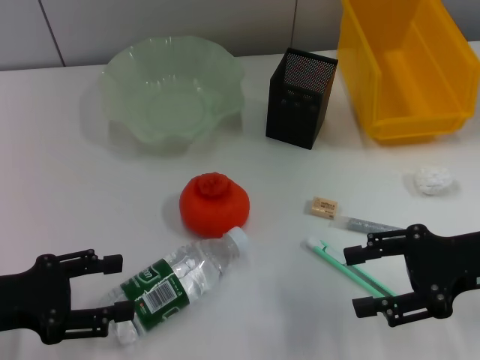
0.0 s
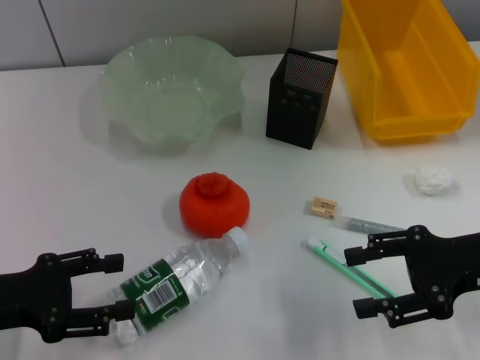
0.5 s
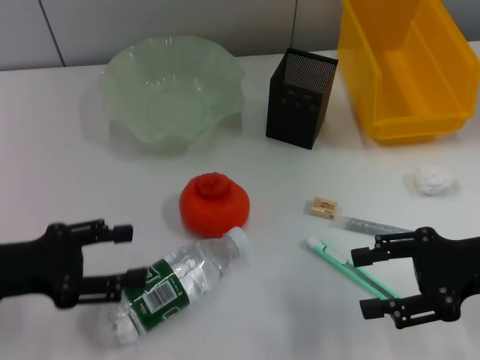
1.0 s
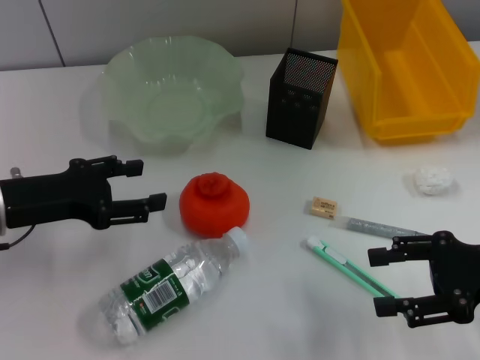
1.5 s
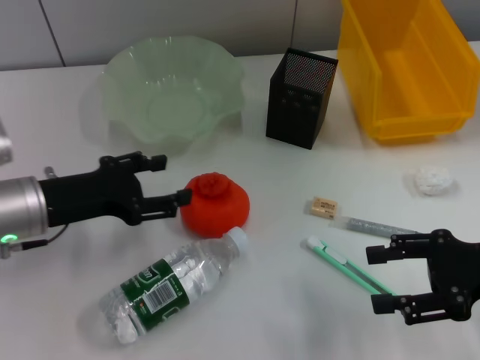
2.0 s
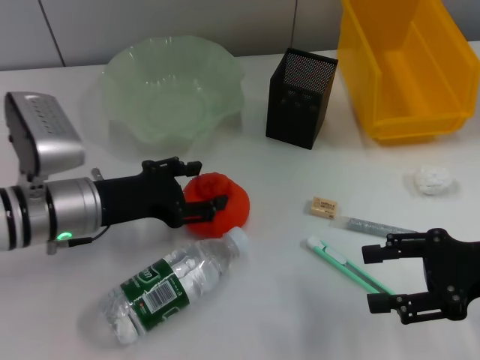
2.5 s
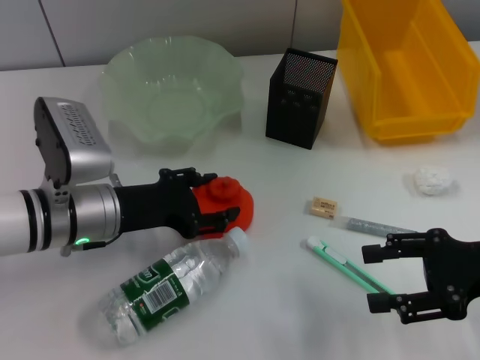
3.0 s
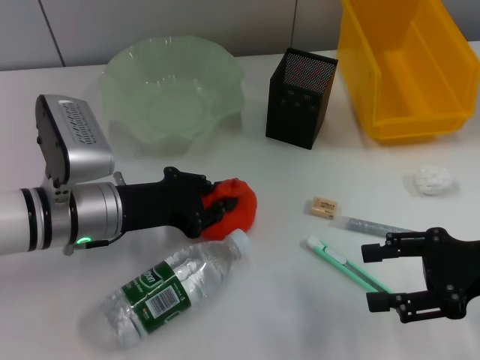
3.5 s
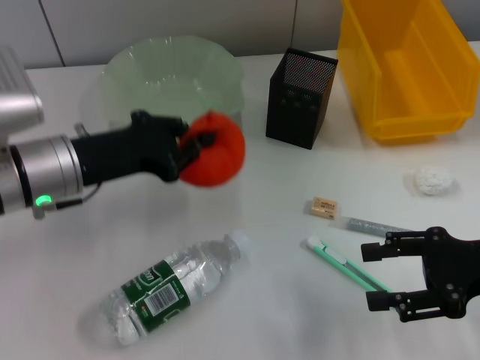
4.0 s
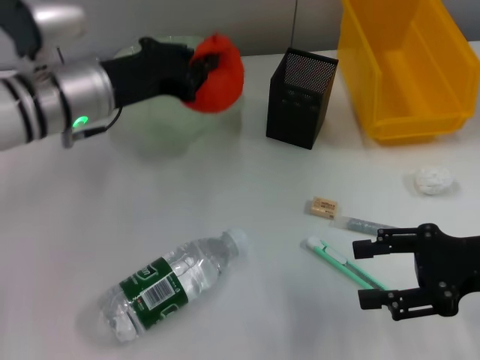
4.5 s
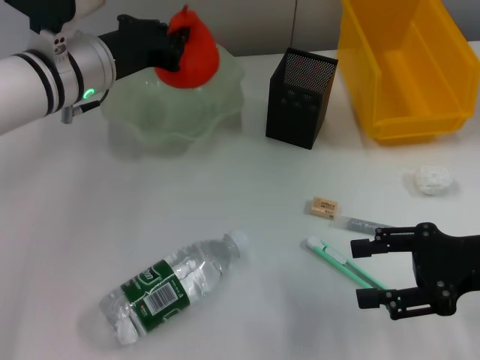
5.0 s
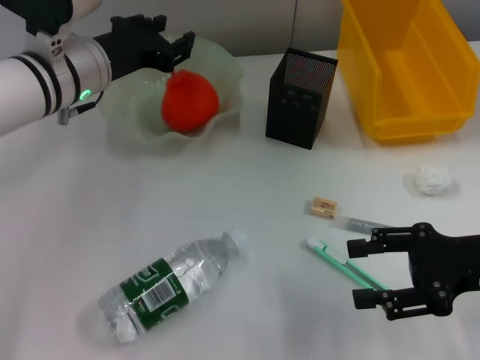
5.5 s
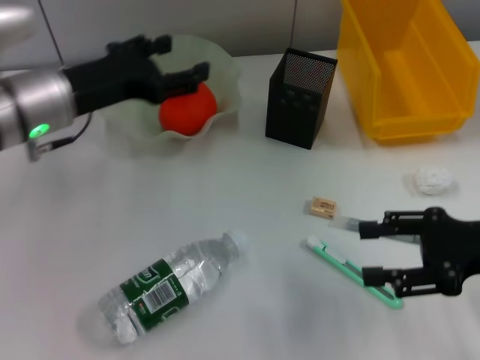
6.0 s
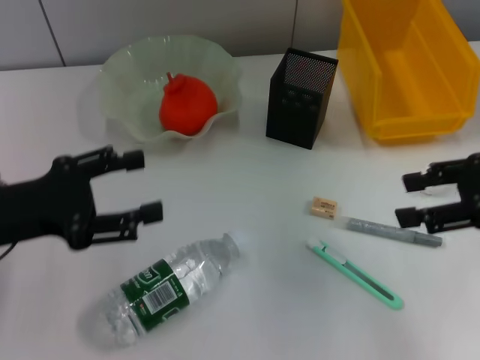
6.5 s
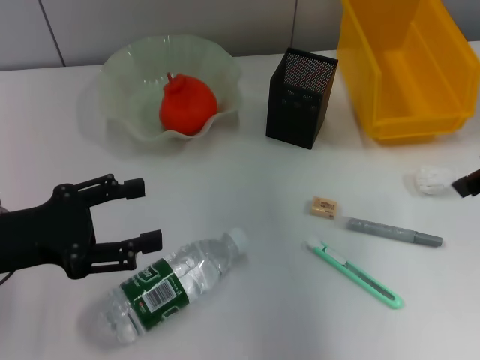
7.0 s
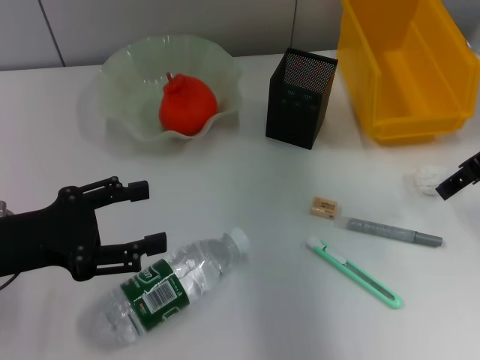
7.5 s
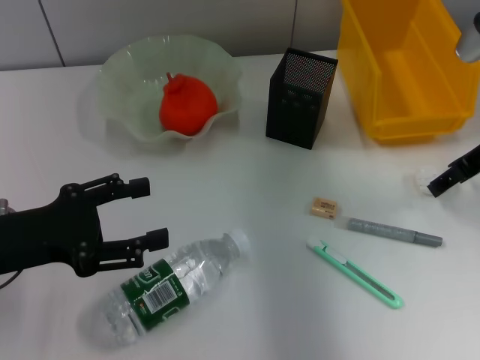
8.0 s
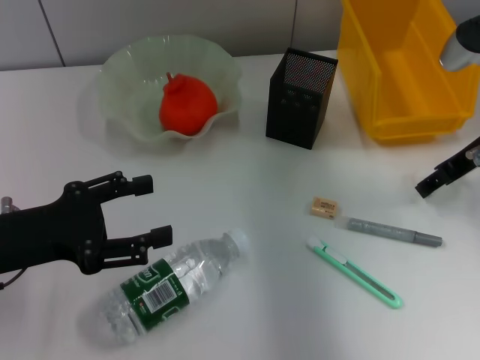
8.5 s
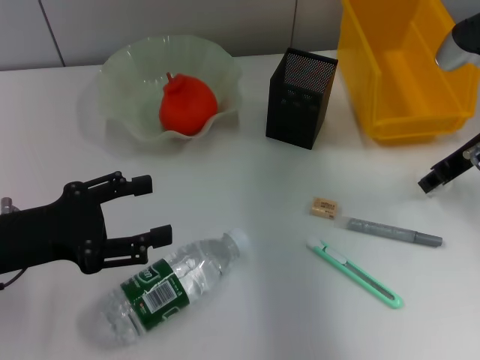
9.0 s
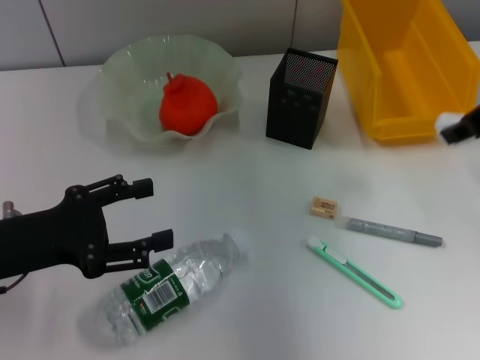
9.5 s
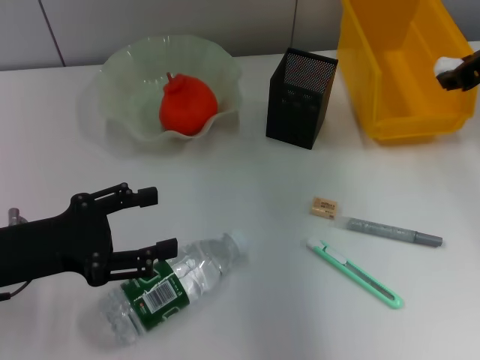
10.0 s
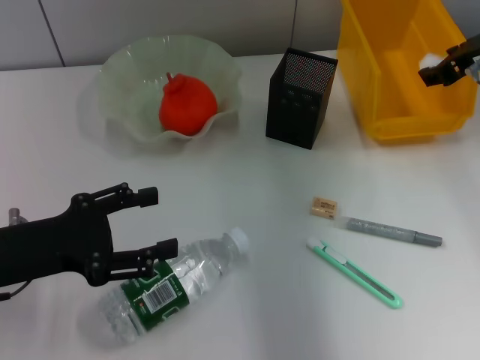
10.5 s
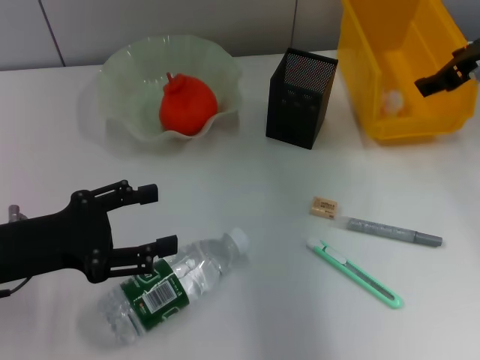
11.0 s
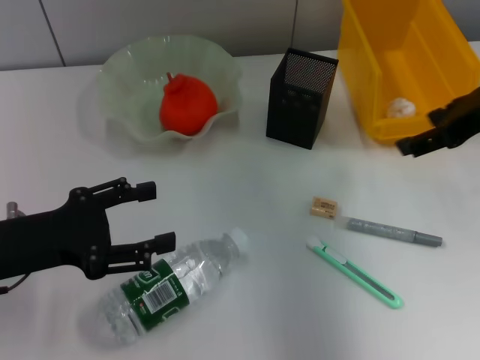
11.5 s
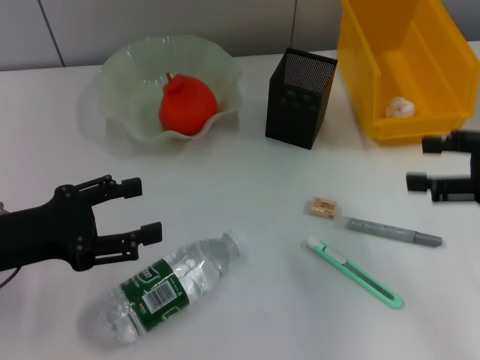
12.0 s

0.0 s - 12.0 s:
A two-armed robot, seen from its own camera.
Step, 0.0 s - 3.0 s: Grab the orange with the left hand.
Step, 3.5 s - 5.5 s: Place the orange into the fruit bowl with the left hand.
Step, 6.0 s - 8.5 s: Grab the paper ball with the right hand.
Step, 9.0 s - 11.0 s: Place the paper ball into the trash can with the right hand.
0.0 s - 2.0 s: The left gripper is displaced forward and to the right by some 10 cm.
2.0 s - 4.0 s: The left gripper ends up about 5 cm from where it was, and closes.
4.0 s - 6.0 s: The left gripper moves forward, approximately 5 cm, and opens.
6.0 s - 8.0 s: The right gripper shifts about 15 cm forward and upward. The left gripper shifts roughly 15 cm backward and to the left.
8.0 s - 10.0 s: The right gripper travels upward by some 5 cm, and closes its fingers.
10.0 s - 12.0 s: The right gripper heads backward, downward and to the right, covering some 15 cm, and opens its fingers.

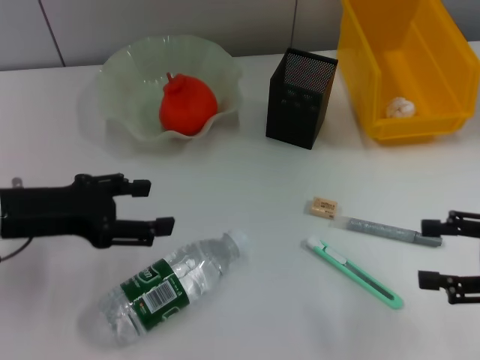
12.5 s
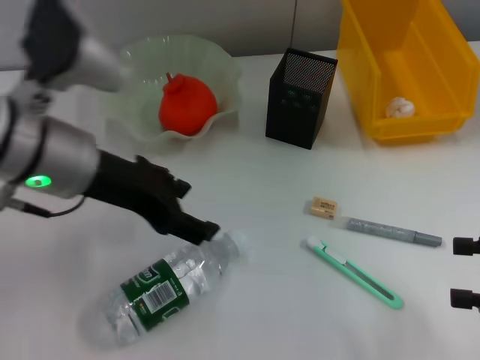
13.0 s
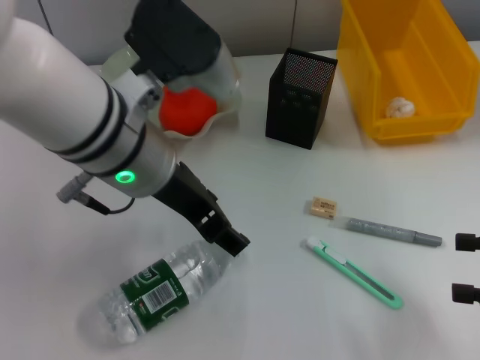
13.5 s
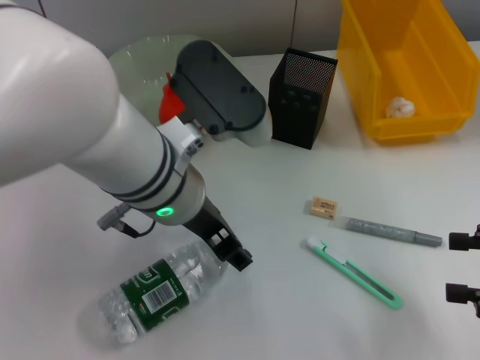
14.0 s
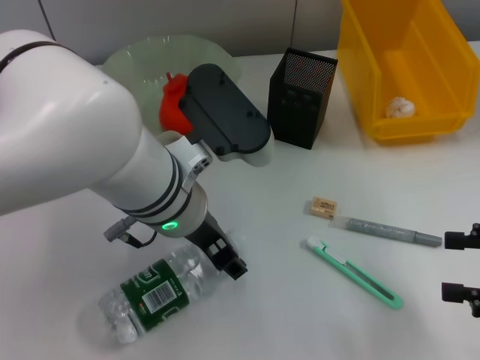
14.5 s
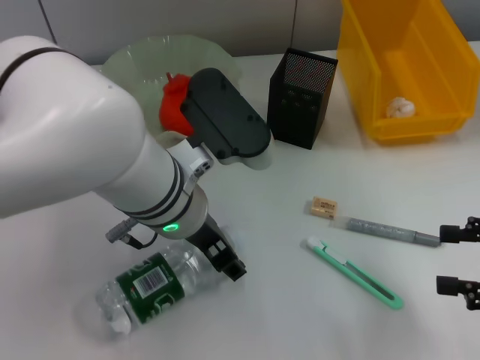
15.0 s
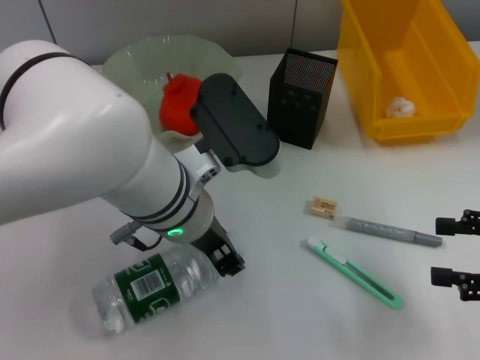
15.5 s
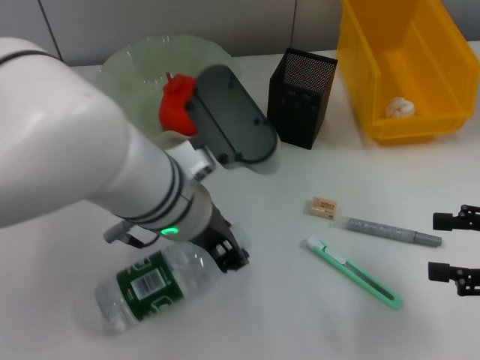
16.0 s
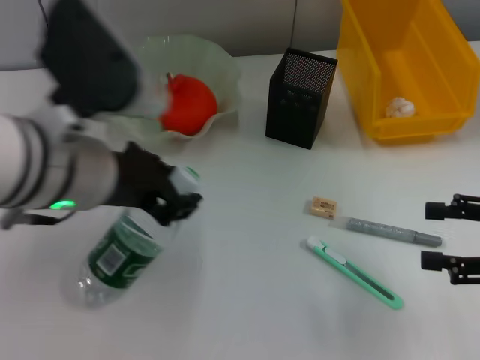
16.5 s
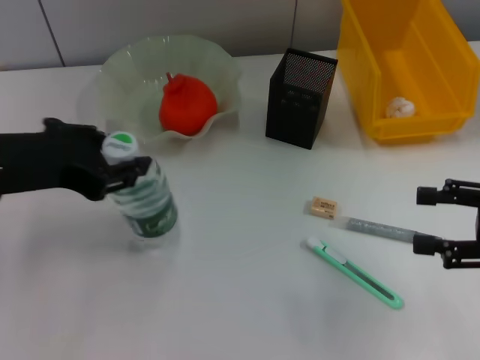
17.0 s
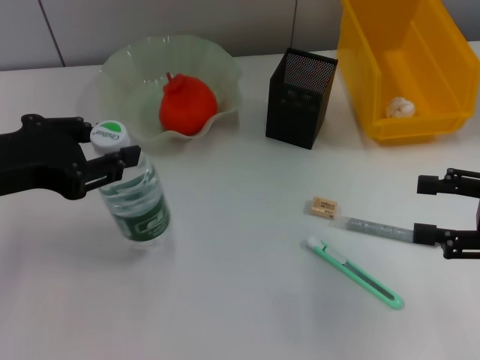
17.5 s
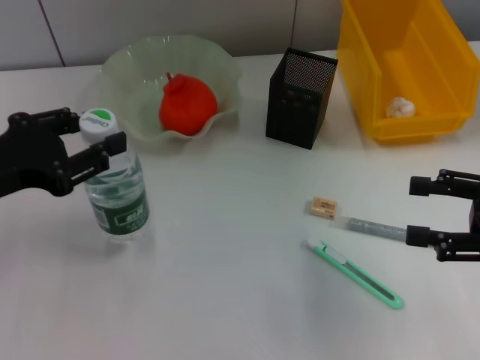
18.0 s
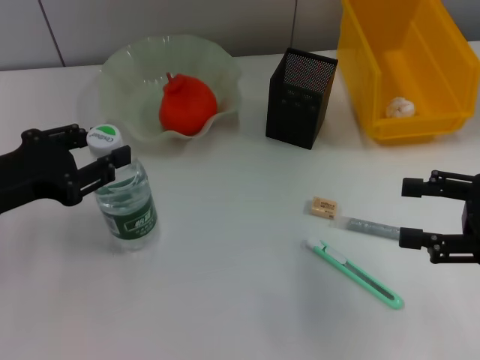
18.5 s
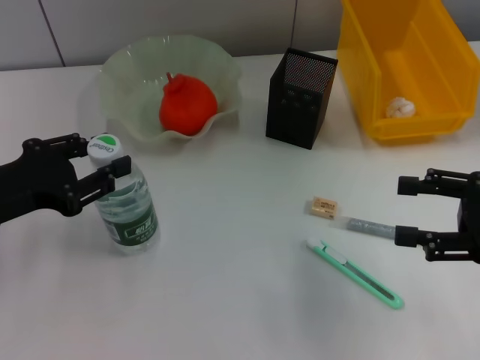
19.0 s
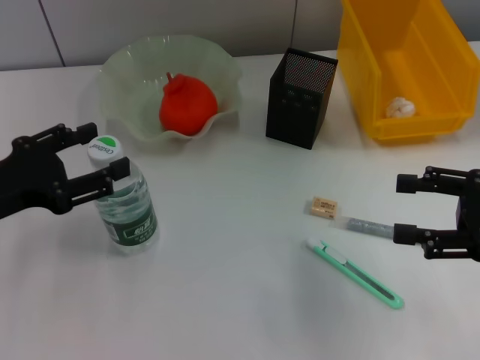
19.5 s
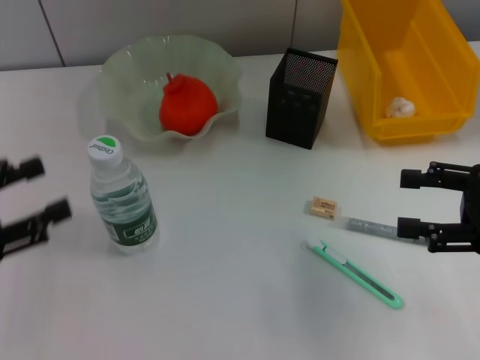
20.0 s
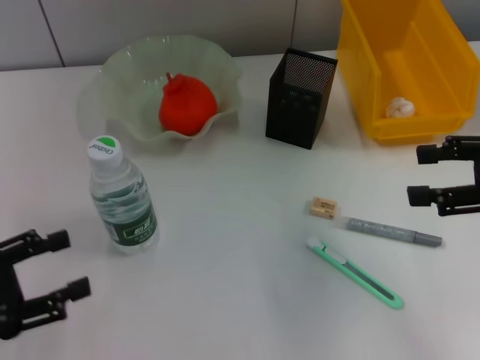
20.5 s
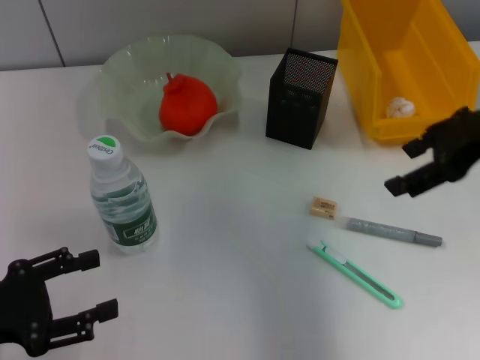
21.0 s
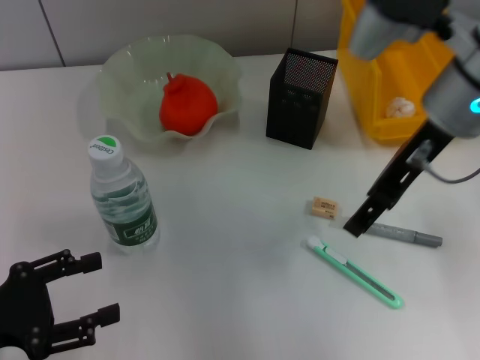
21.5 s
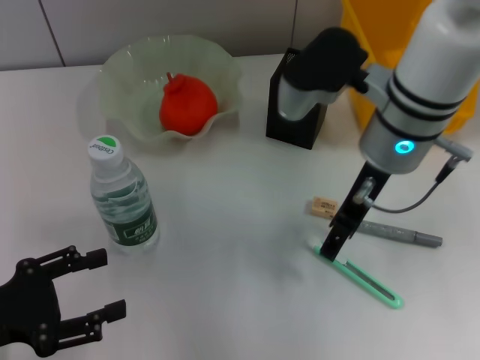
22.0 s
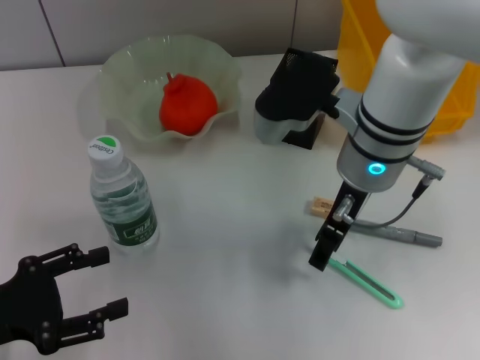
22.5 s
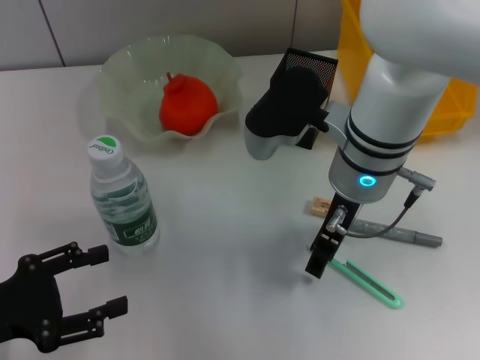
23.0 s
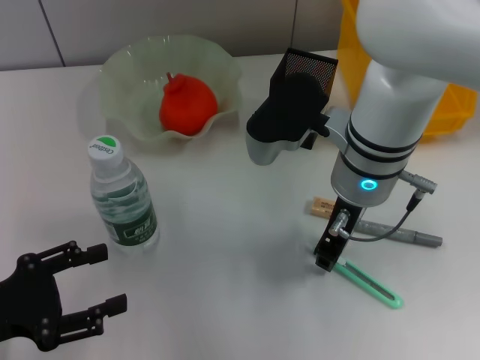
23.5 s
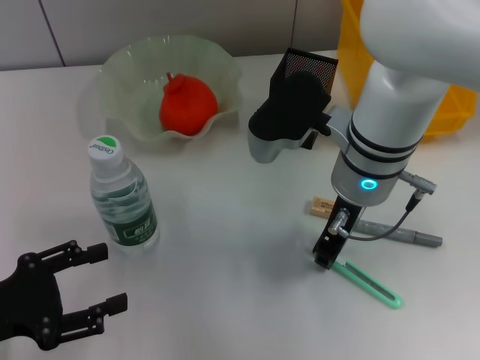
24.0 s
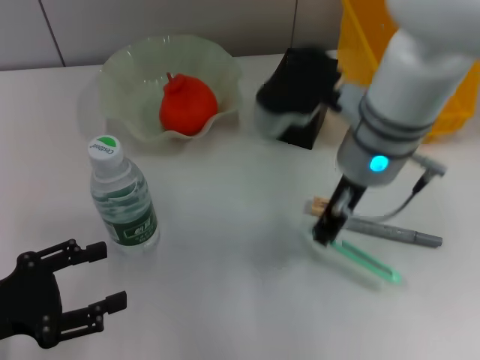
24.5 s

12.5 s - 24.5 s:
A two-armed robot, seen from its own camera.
Step, 12.5 s - 15.5 s: Grab the water bottle with the left hand.
Step, 16.0 s - 19.0 s: Place the water bottle on the table with the left hand.
Step, 19.5 s - 24.0 s: Grab the blue utility knife with the right hand.
12.5 s - 14.5 s: The left gripper heads to the right, covering about 20 cm.
14.5 s - 16.5 s: The left gripper travels to the left and upward by some 10 cm, and closes up.
16.5 s - 18.5 s: The left gripper travels to the left and downward by some 15 cm.
18.5 s - 20.5 s: The right gripper is displaced upward by approximately 5 cm; the left gripper heads backward and to the left, covering approximately 10 cm, and opens its fingers.
20.5 s - 22.5 s: The right gripper heads to the left, covering approximately 20 cm.
22.5 s - 24.5 s: The right gripper closes.

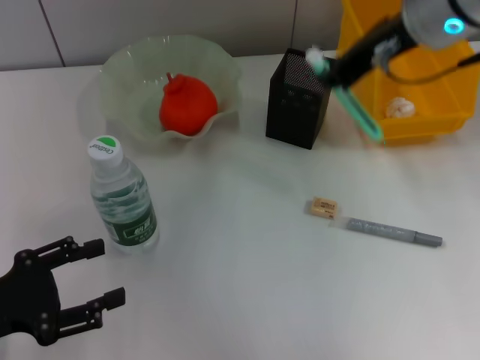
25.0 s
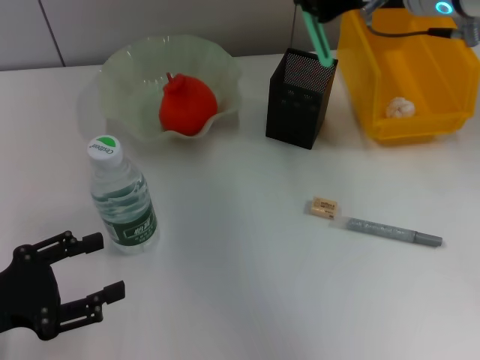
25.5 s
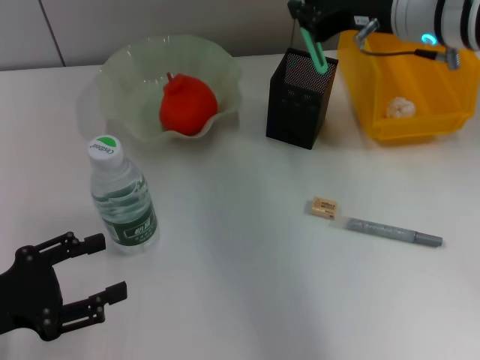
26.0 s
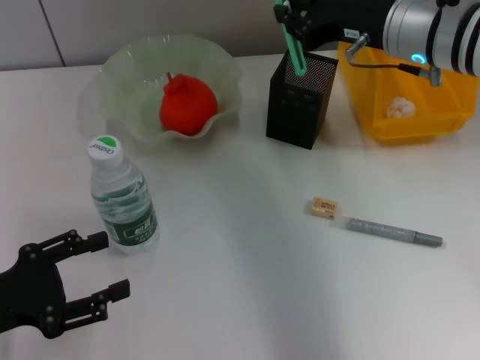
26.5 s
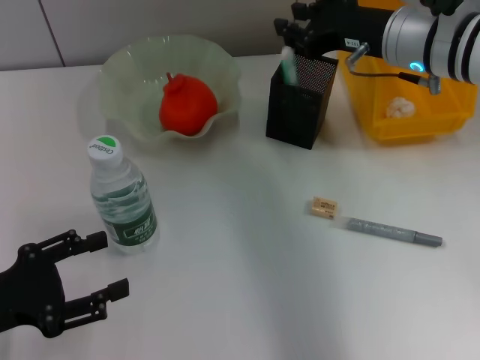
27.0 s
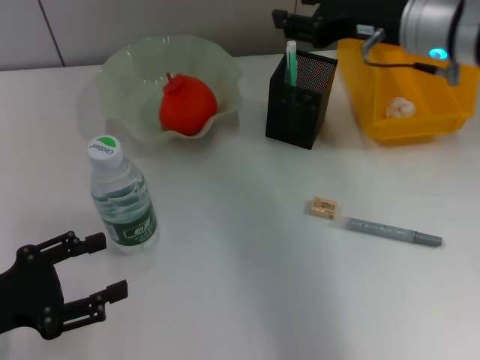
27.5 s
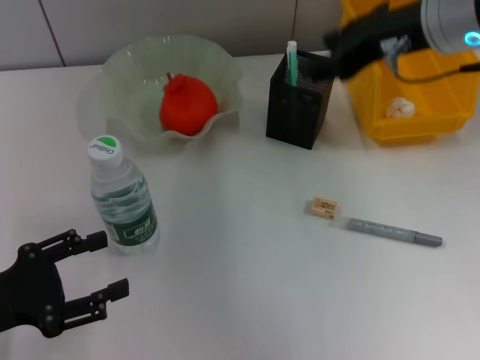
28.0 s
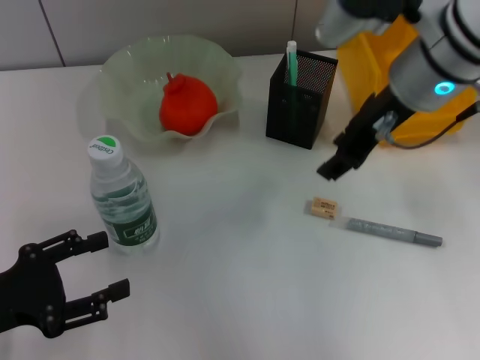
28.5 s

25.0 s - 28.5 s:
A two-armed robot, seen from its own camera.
Step, 25.0 s - 27.0 s: Place the blue utility knife into the pen holder with the right hand.
25.0 s - 27.0 s: The right gripper shifts about 10 cm downward.
27.0 s - 28.5 s: The right gripper shifts by some 5 cm, and opens its fingers.
